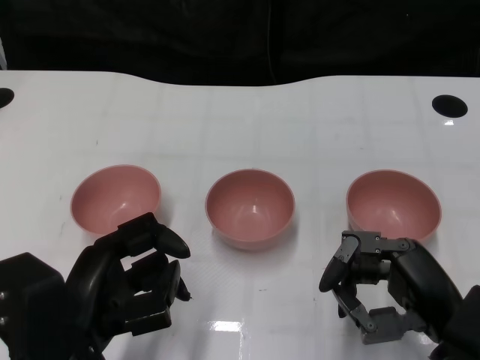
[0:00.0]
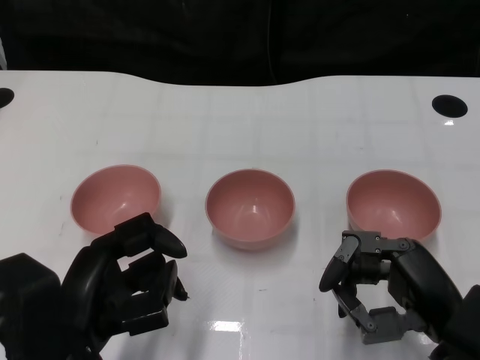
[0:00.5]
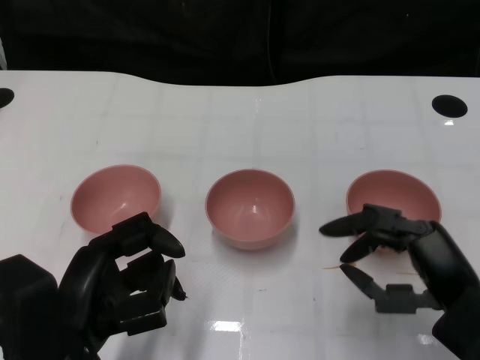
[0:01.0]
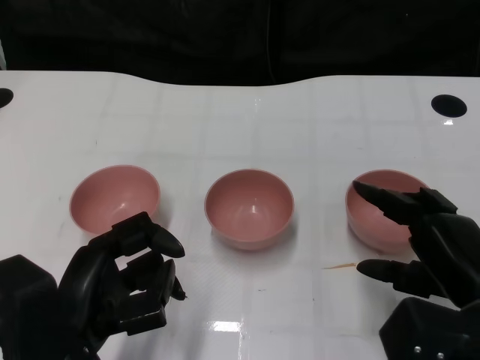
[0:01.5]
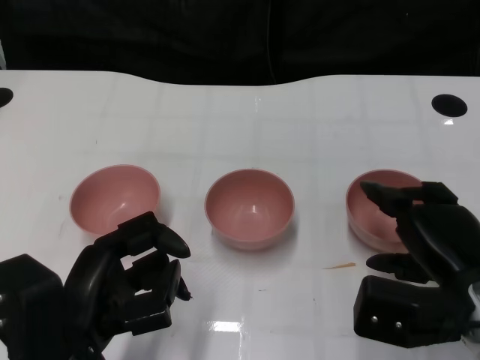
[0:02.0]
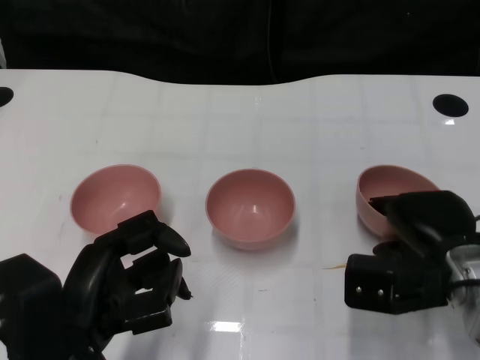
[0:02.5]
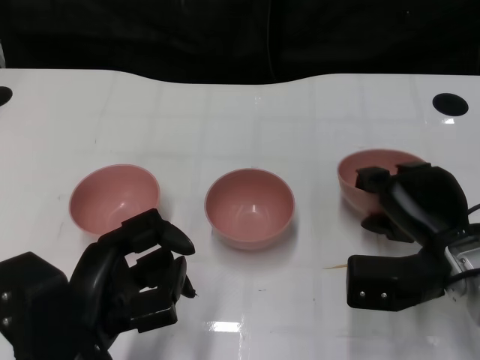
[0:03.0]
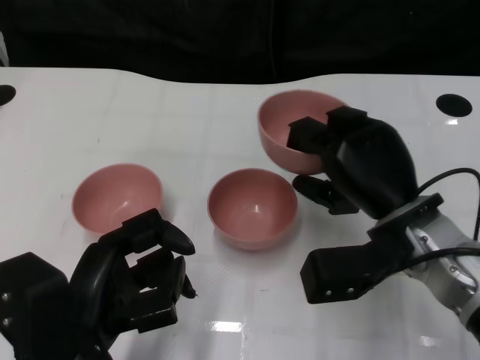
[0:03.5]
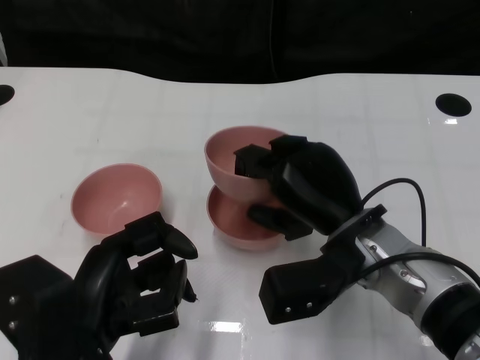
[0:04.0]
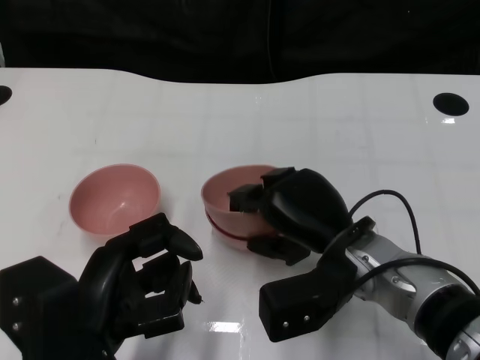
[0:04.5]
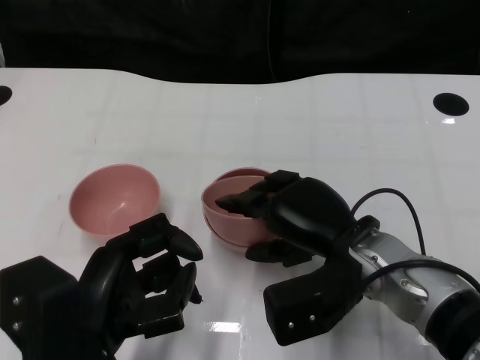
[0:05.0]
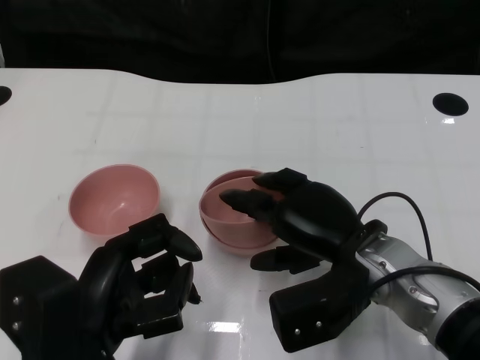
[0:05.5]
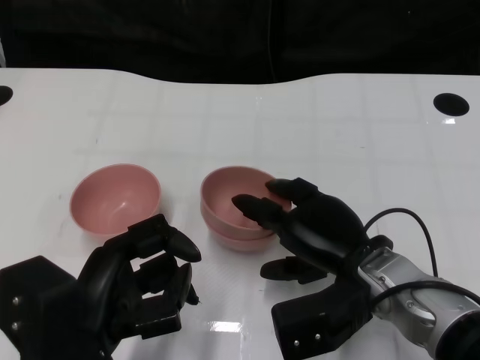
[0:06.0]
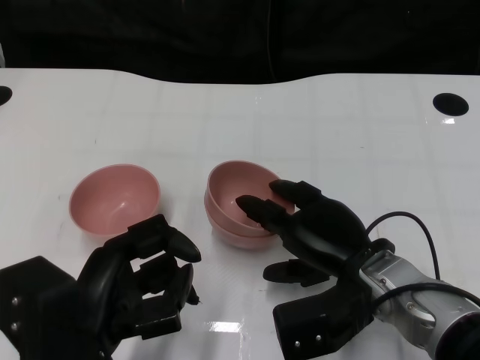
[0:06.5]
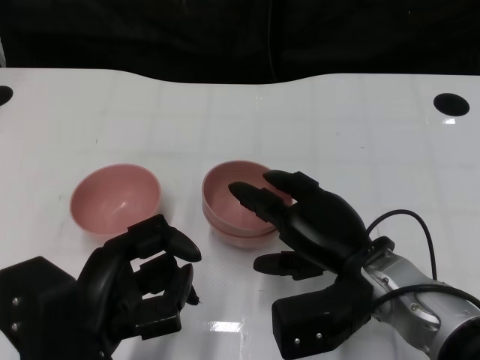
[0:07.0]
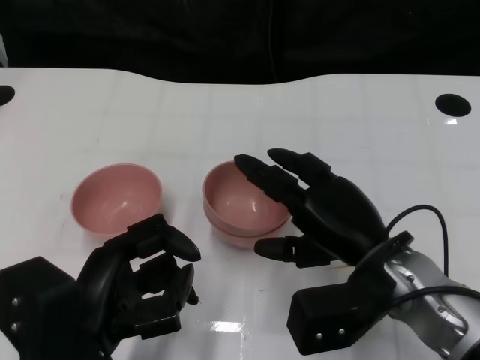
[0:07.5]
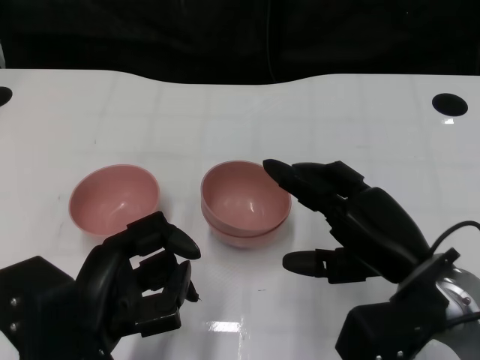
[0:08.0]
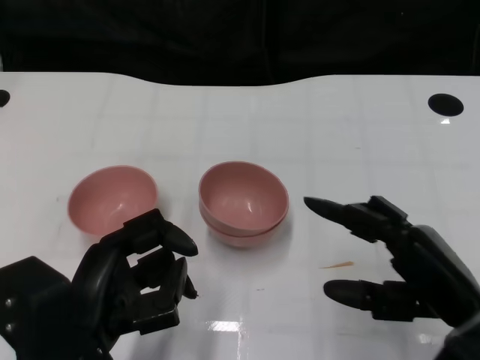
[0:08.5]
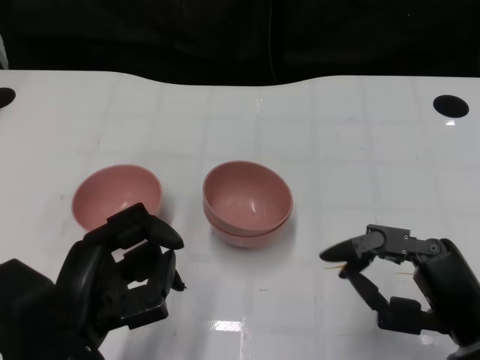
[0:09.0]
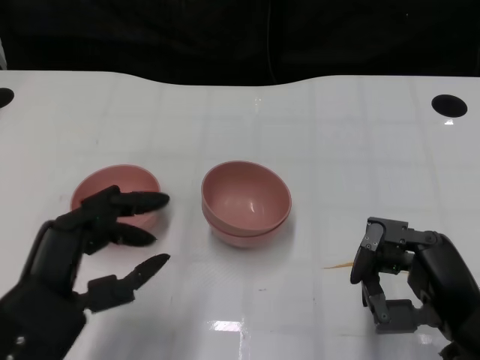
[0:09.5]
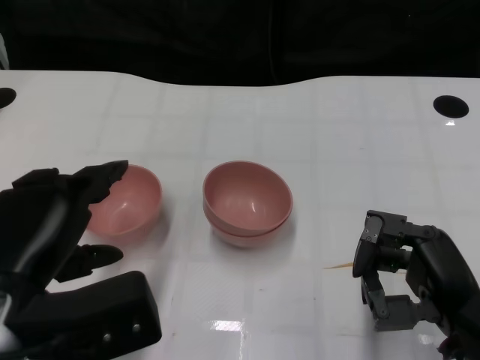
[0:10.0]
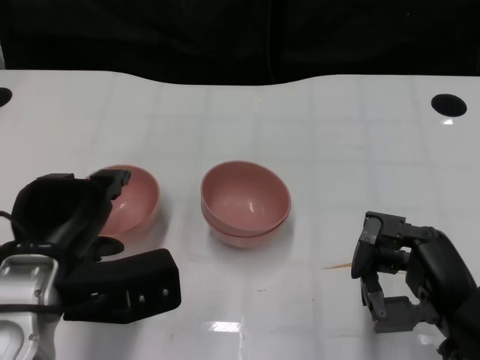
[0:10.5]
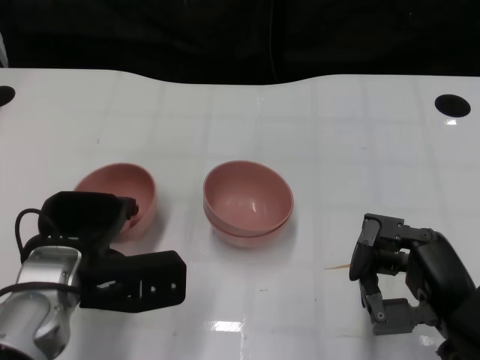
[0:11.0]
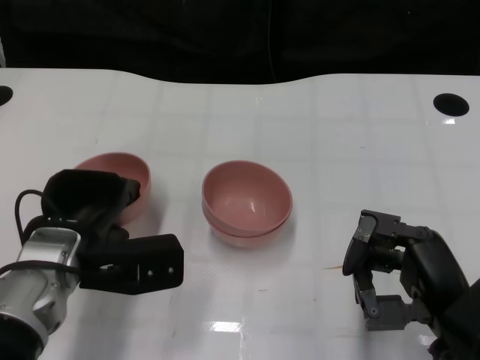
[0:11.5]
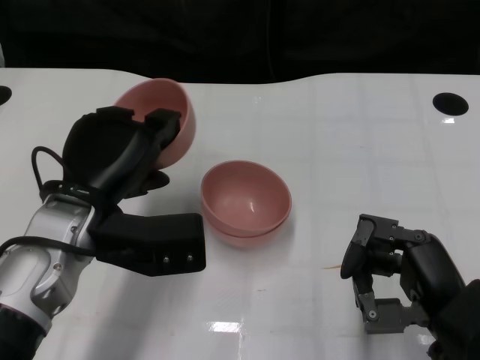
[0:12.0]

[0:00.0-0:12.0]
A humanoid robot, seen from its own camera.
Task of the whole recording: Pick up the bowl on one side of the table and place it on top of the middle bowl, then pick up the bowl on the other side of the table and place it on top of the middle bowls.
Step, 0:01.0 to 0:02.5: Grasp the bowl on the right with the right gripper.
Step, 0:03.0 to 0:06.5: Place the bowl on the right onto the bowl in the middle with right gripper.
Step, 0:07.0 to 0:11.5: Grasp the bowl on the left with the left gripper.
0:02.0 to 0:04.0: The right hand heads to the left and forward, covering about 10 cm.
0:06.0 to 0:08.0: The right hand moves approximately 5 cm.
0:08.0 to 0:10.0: The left hand shifts some 5 cm upward. Meanwhile the right hand heads backward, covering about 5 cm.
0:10.0 to 0:12.0: The left hand moves forward, about 10 cm.

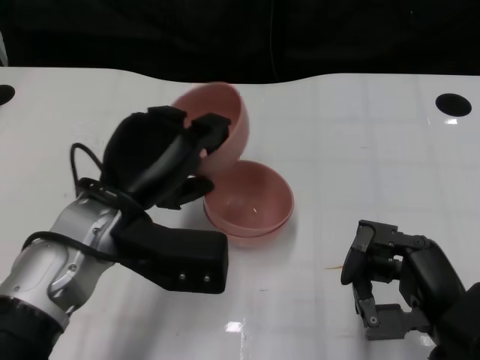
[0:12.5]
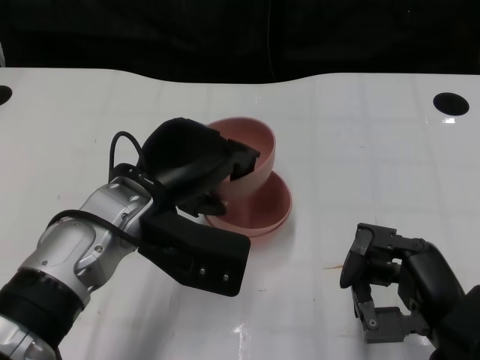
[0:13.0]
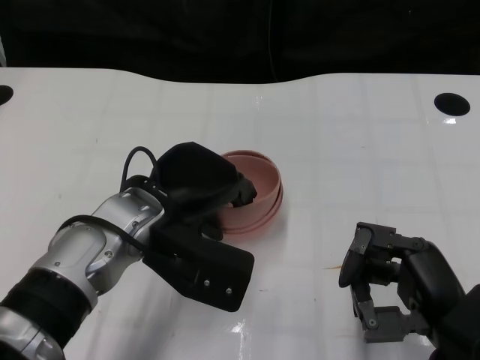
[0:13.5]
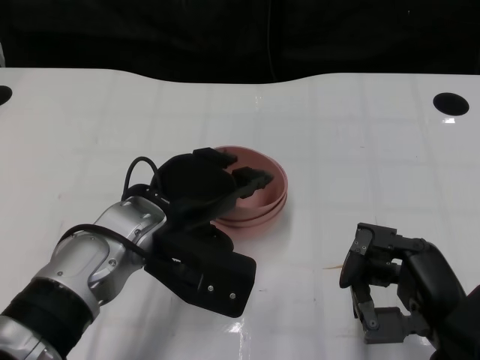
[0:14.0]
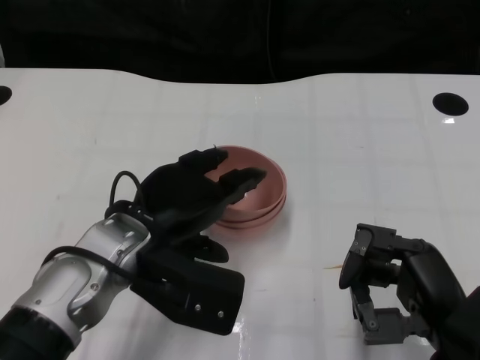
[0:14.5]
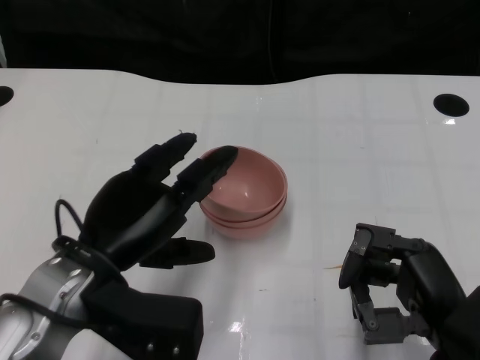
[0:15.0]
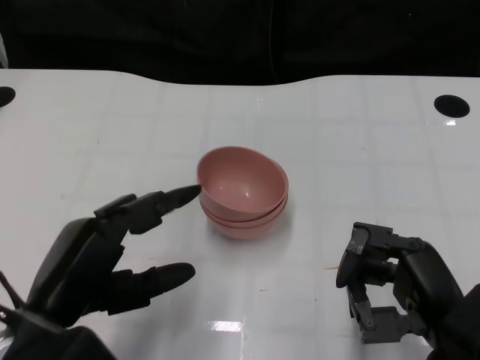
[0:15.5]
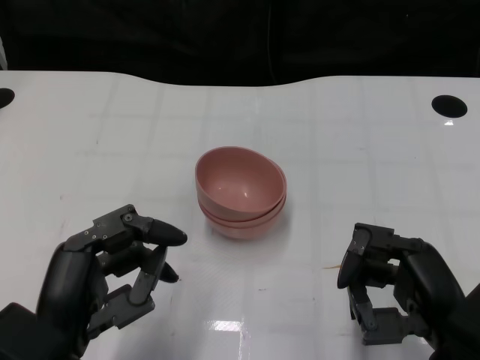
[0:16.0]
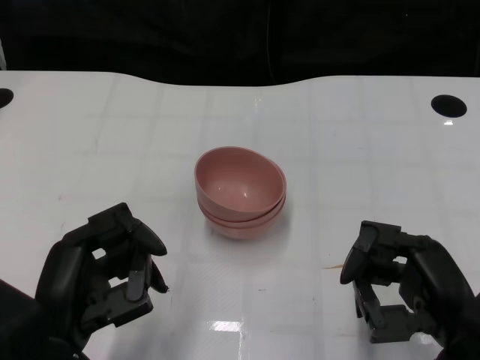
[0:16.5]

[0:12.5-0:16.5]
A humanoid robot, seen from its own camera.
Task of the whole recording: Pick up the bowl on one side of the table and place it on top of the middle bowl, then pick up the bowl on the other side of the table and place it on top of the middle bowls.
Step, 0:12.5 to 0:14.5: Place the bowl on the left onto the bowl in the middle with left gripper.
0:14.5 to 0:16.5: The left hand heads backward and to the left, covering some 15 cm.

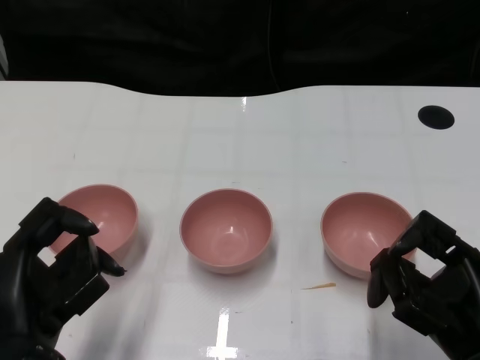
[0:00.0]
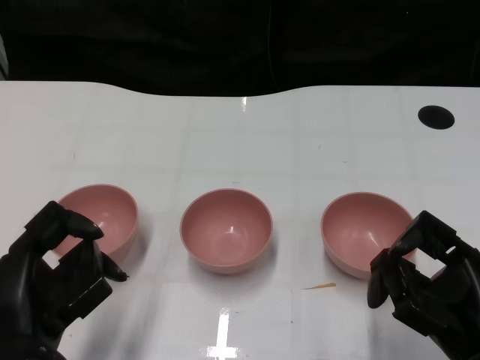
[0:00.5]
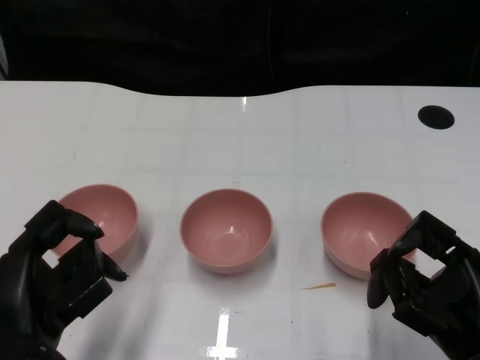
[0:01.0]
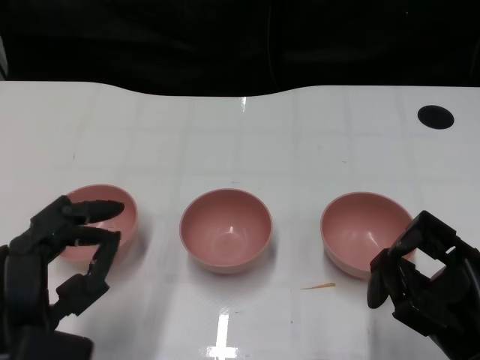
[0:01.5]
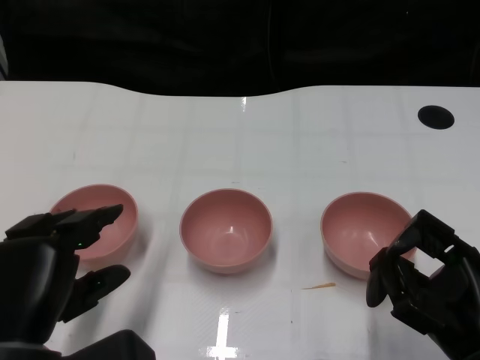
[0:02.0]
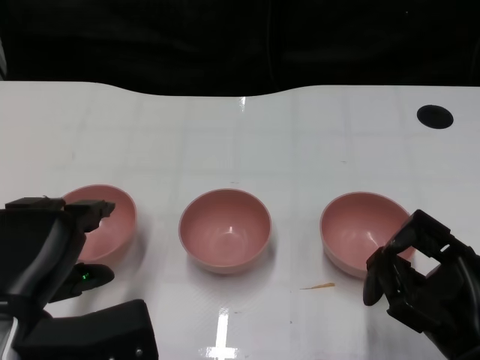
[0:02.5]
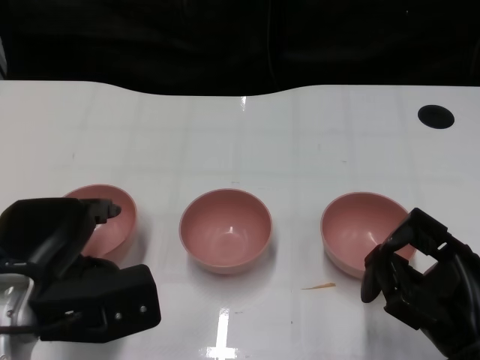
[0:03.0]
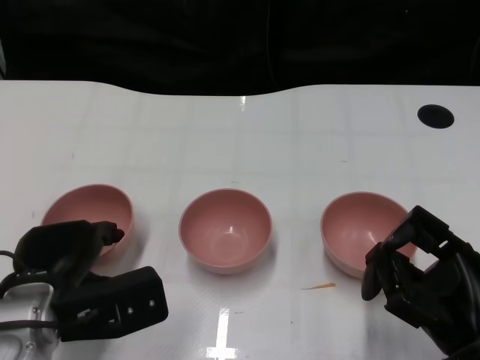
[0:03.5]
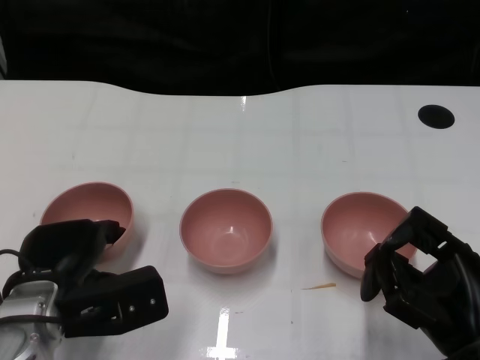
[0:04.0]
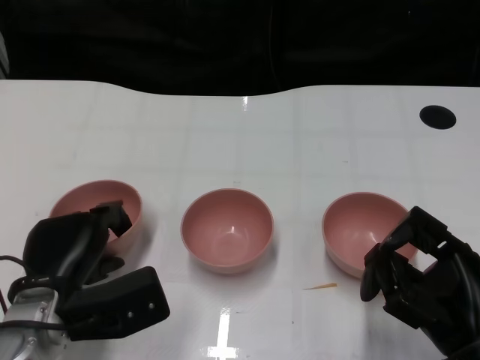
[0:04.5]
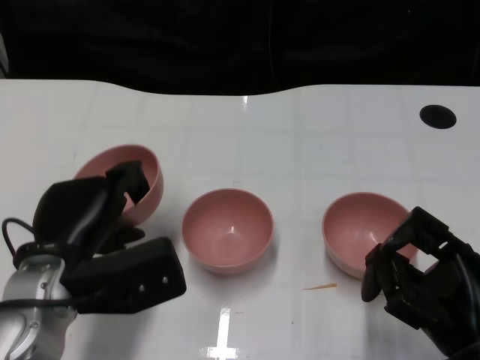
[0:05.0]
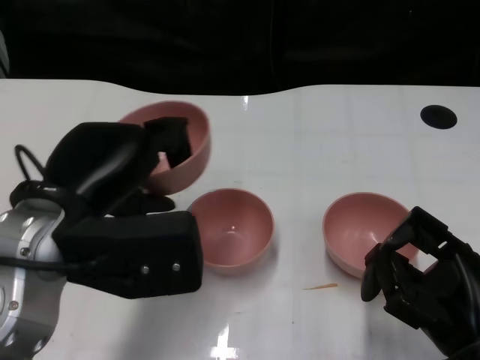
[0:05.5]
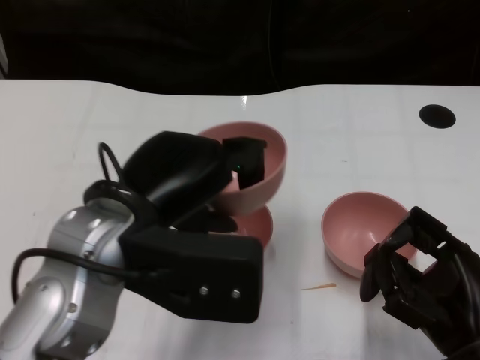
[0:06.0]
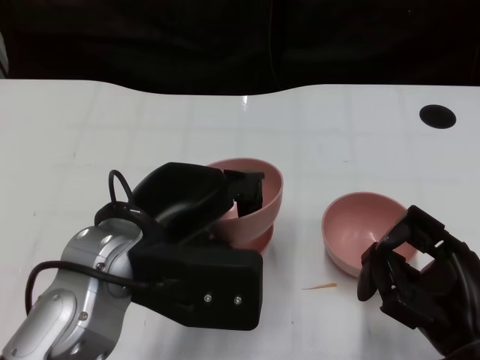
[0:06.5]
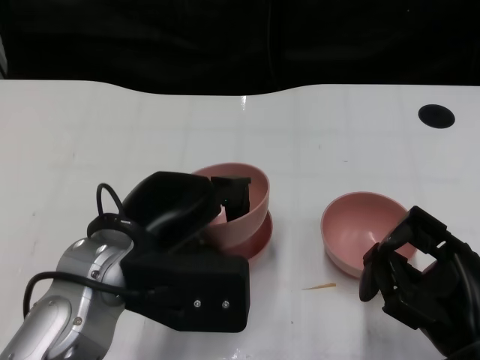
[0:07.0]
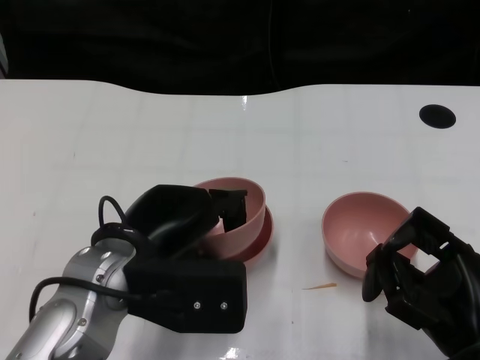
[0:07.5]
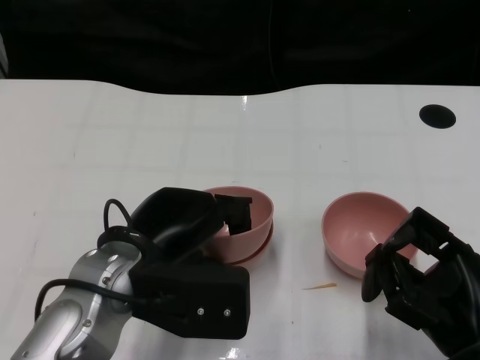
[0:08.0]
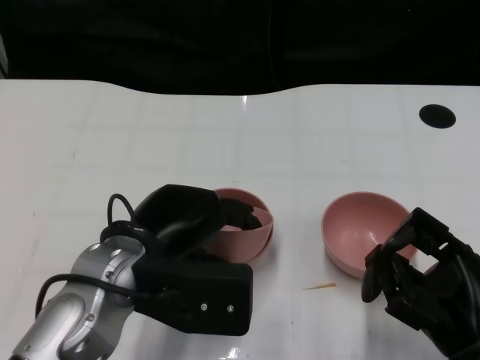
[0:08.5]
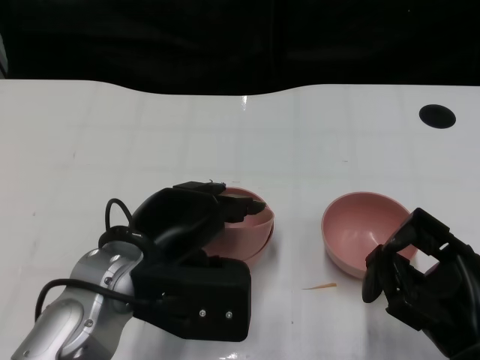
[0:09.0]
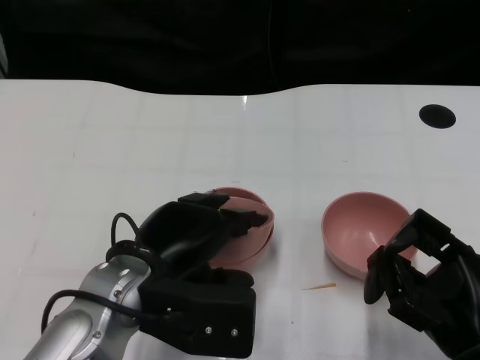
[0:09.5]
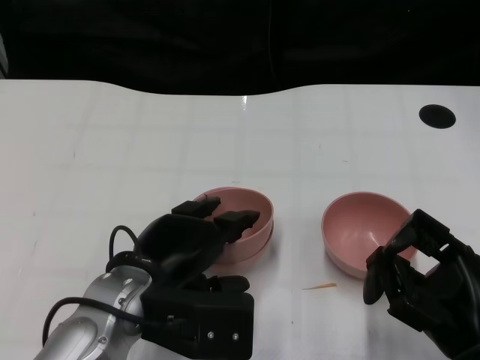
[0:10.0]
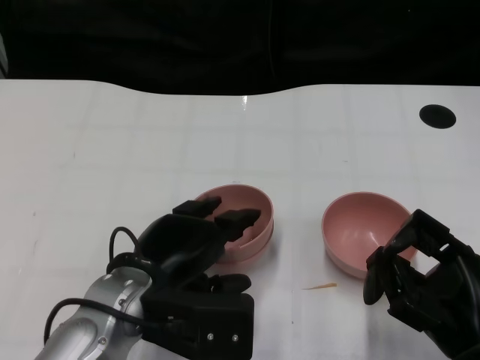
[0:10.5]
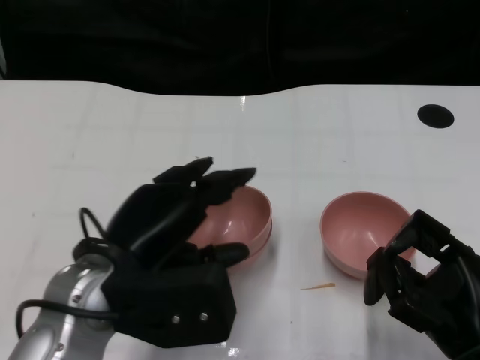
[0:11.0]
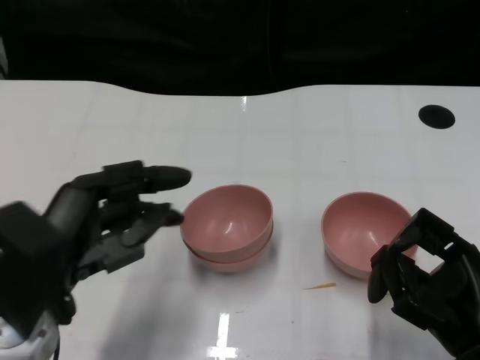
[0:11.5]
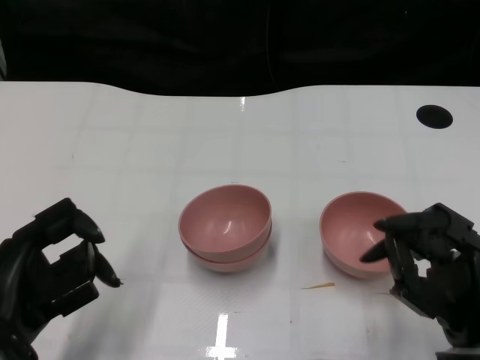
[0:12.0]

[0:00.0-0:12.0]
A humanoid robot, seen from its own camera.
Task of the whole recording: Pick up the bowl on one side of the table and place it on top of the middle bowl, then pick up the bowl on the other side of the table and place it on top of the middle bowls.
Step, 0:01.0 to 0:04.5: Grasp the bowl on the left with the left gripper.
Step, 0:05.0 to 0:10.5: Place the bowl on the left onto the bowl in the middle with left gripper.
0:02.0 to 0:04.0: The left hand shifts about 10 cm forward.
0:04.0 to 0:06.0: The left hand moves upward and to the right, roughly 15 cm.
0:06.0 to 0:08.0: The left hand heads downward, covering approximately 5 cm.
0:08.0 to 0:10.0: The hands stay close to where they were, moving slightly.
0:10.0 to 0:12.0: The left hand moves to the left and backward, roughly 15 cm.
